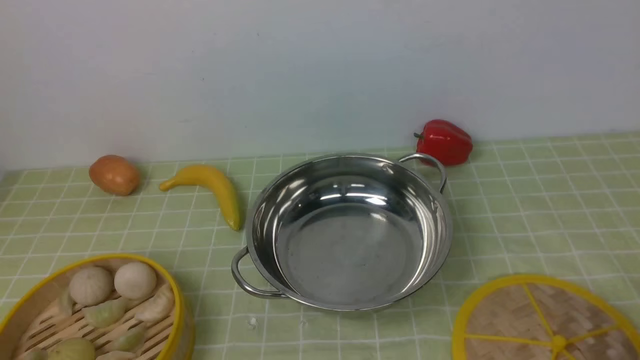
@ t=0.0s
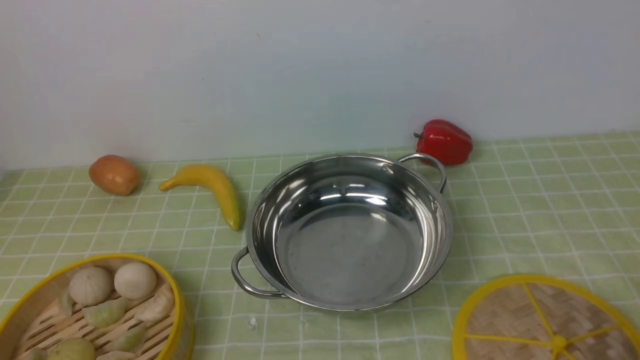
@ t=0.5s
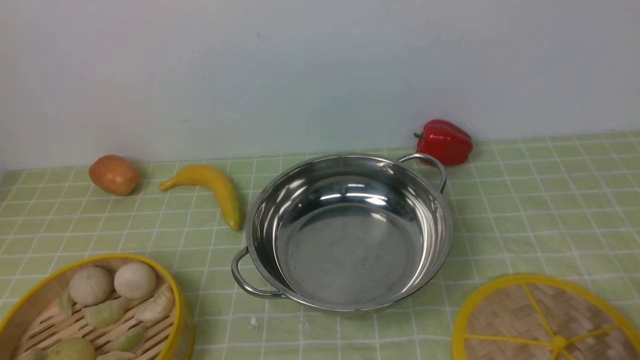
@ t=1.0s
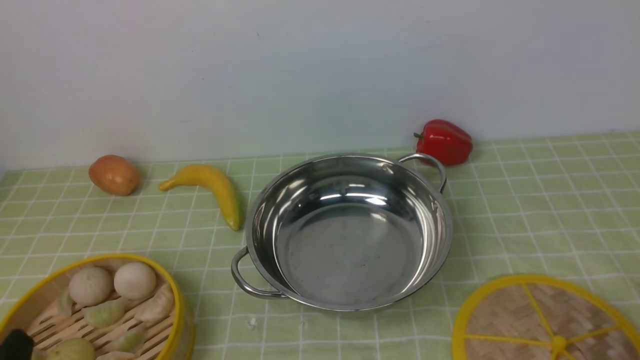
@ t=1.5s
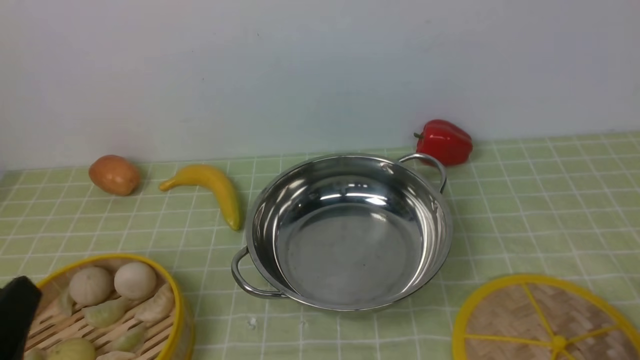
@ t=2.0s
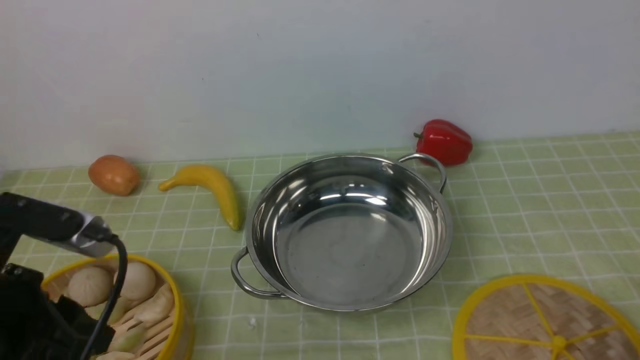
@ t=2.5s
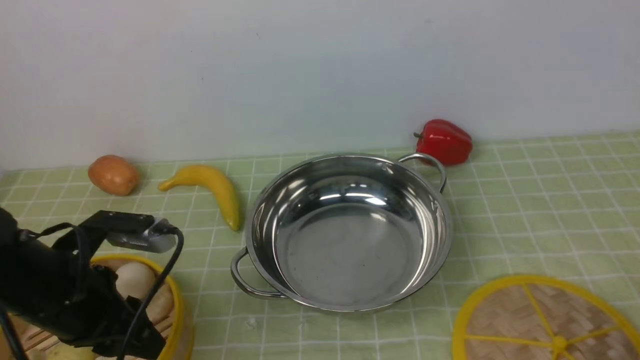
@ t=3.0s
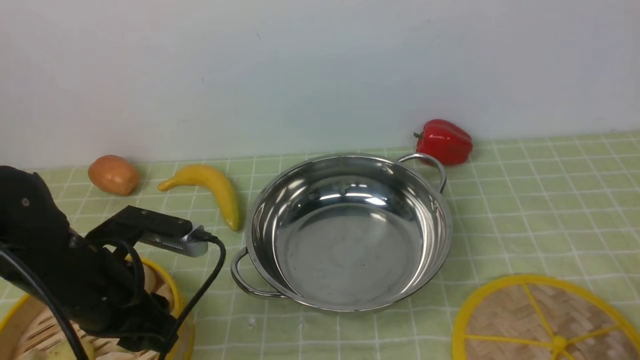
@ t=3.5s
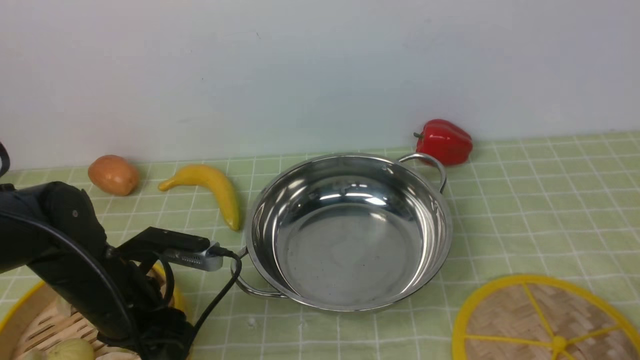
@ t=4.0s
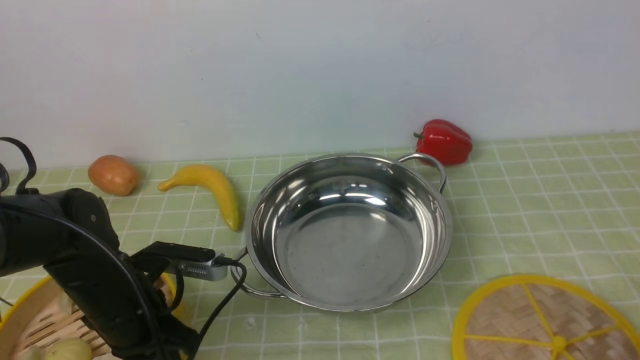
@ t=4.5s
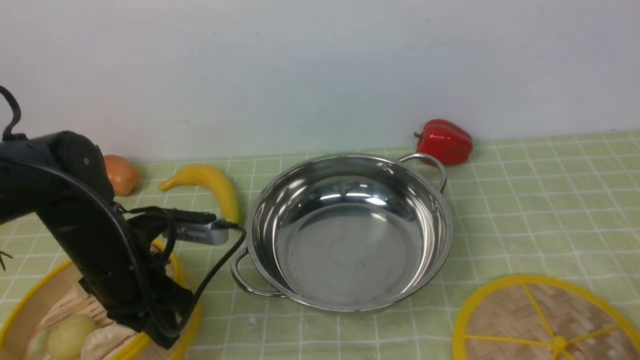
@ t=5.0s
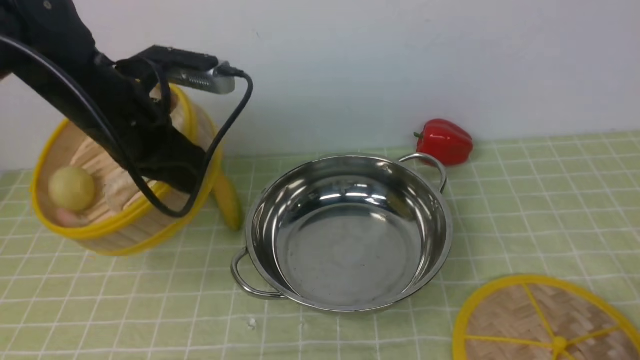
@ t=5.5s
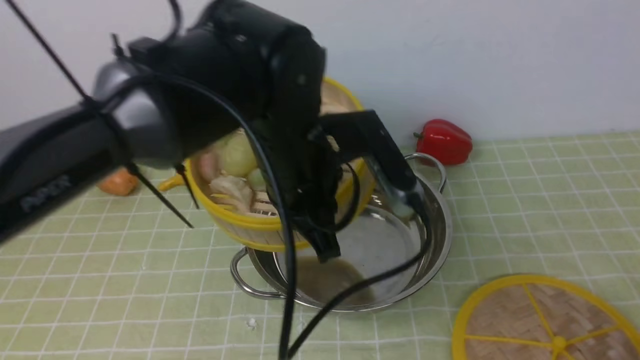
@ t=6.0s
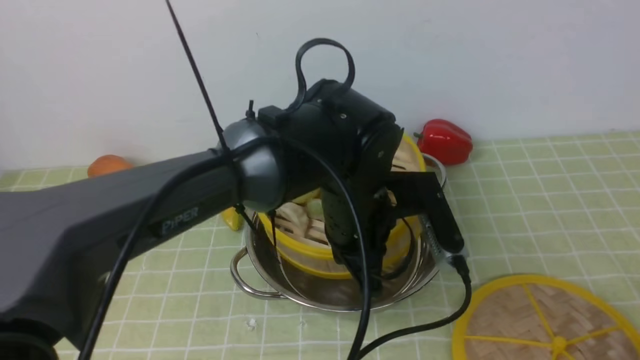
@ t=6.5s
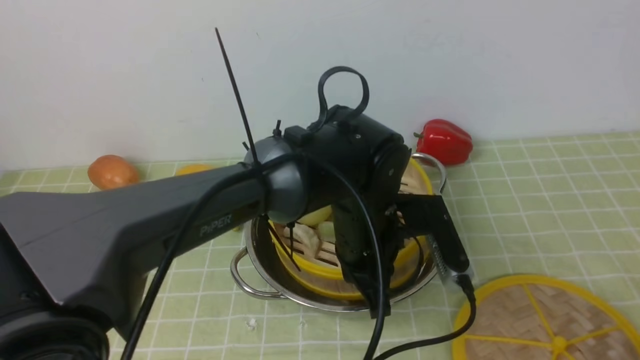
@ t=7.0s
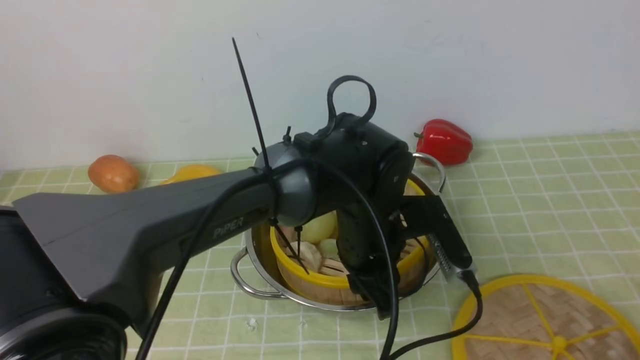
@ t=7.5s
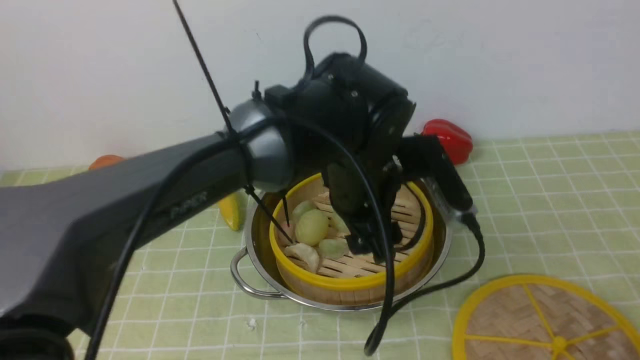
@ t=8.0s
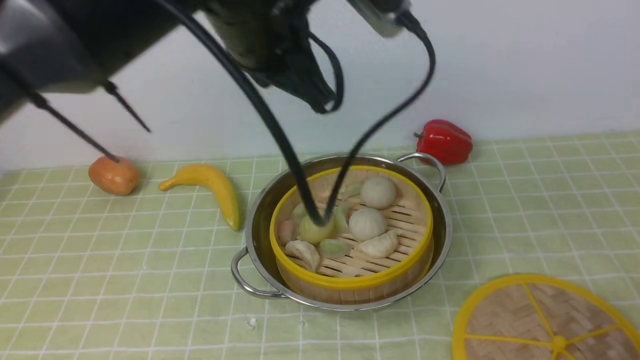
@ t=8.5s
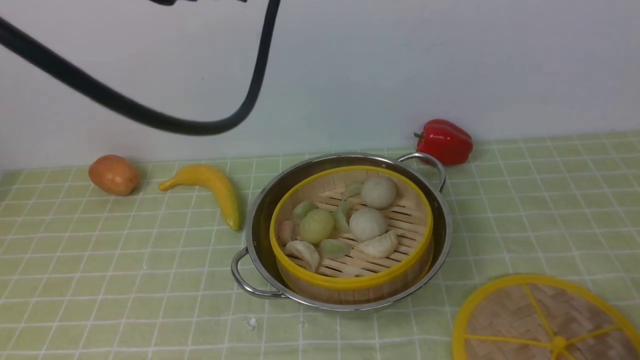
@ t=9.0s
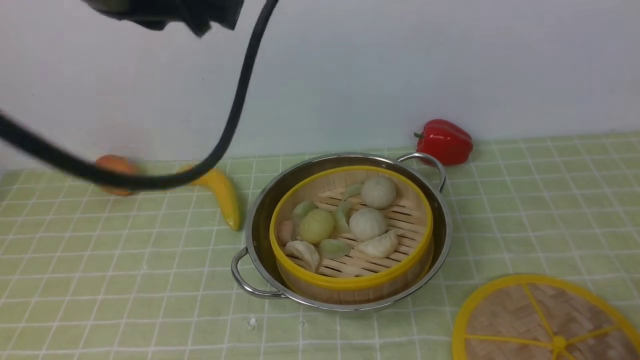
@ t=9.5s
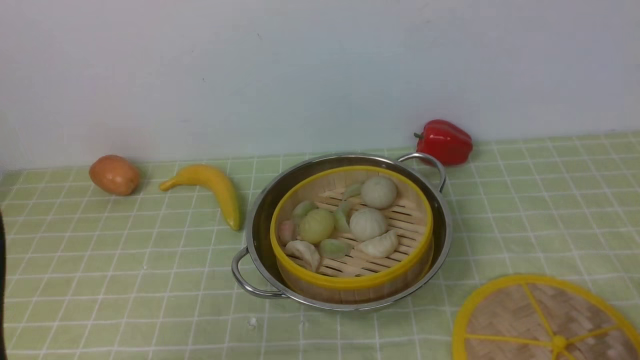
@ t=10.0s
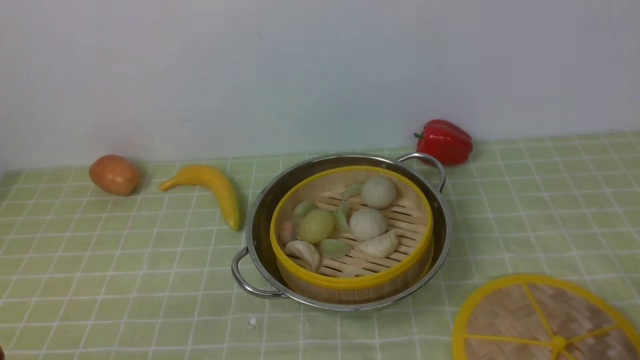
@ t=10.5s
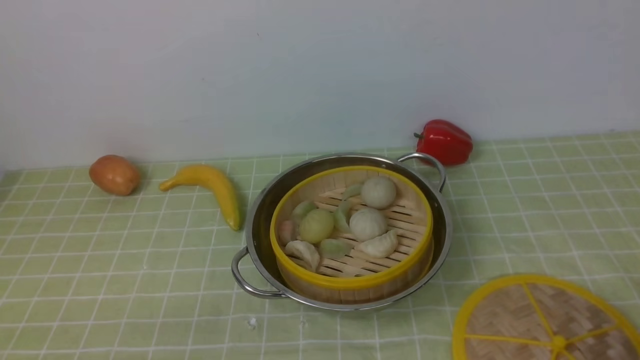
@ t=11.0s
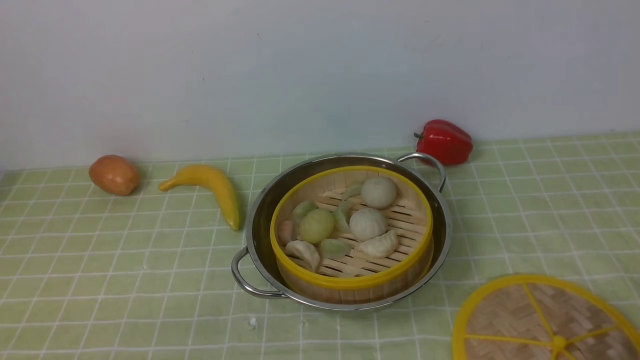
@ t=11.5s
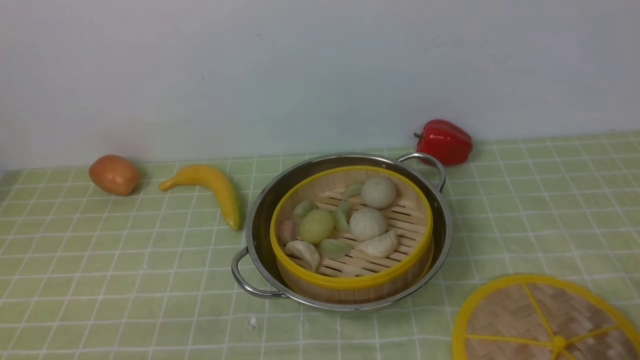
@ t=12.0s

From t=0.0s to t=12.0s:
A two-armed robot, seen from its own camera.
Task of the whole recording: place the steamer in the pot on the green tablecloth, and put the lid on the steamer.
Step, from t=0.0s to t=5.0s: use the left arm to lift the steamer closest to it.
Step, from t=5.5s to t=8.0s: use the left arm to put the steamer into the iron steamer pot in the middle.
From t=0.0s to t=2.0s: The left gripper moves upward, approximately 10 cm.
From t=2.0s to t=4.0s: The left gripper moves forward and downward, roughly 20 cm.
From t=4.0s to t=6.0s: The left gripper shifts some 20 cm to the right and upward, and closes its fingers.
From t=6.0s to t=8.0s: The left gripper shifts roughly 5 cm to the right, goes downward and returns, about 10 cm each way, and opens its fingers.
From t=8.0s to t=10.0s: The left gripper shifts about 35 cm to the left and backward, and closes.

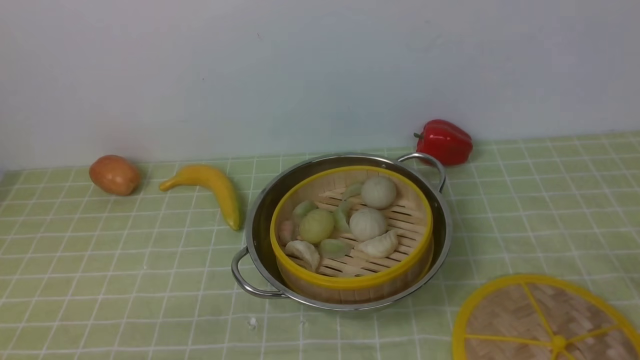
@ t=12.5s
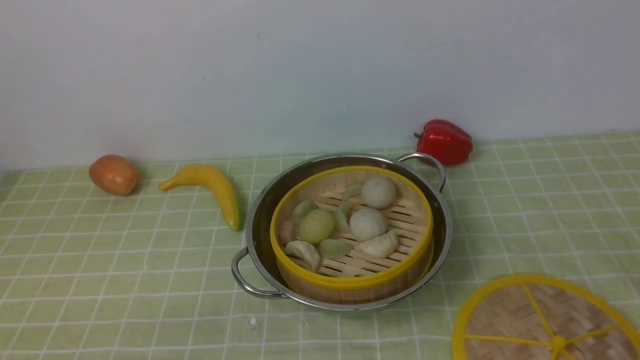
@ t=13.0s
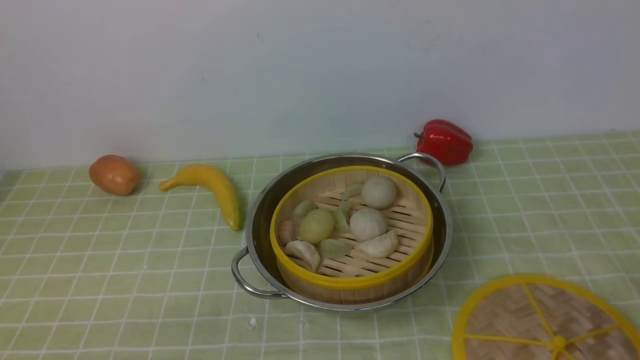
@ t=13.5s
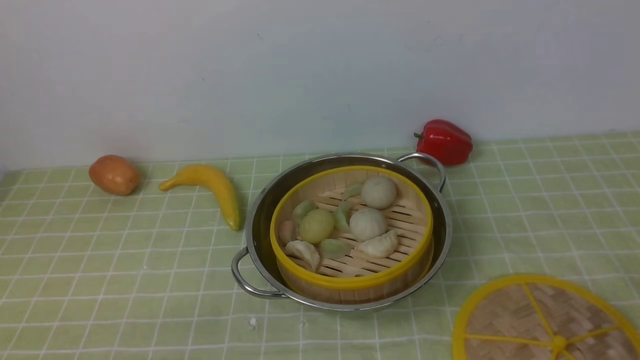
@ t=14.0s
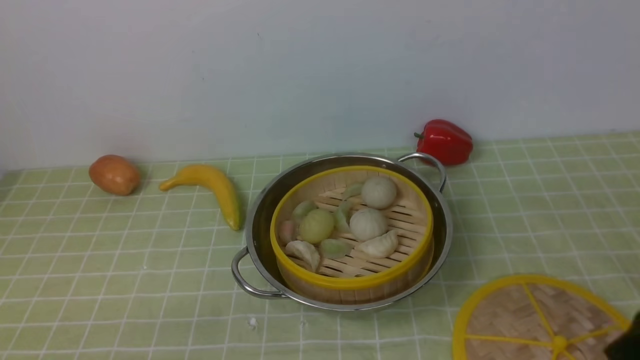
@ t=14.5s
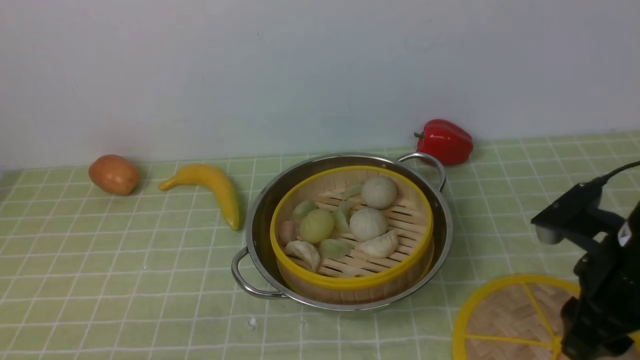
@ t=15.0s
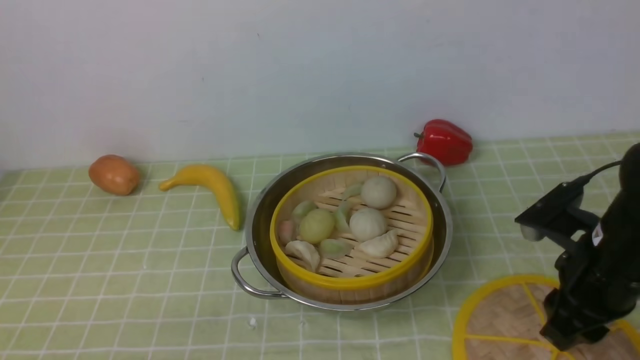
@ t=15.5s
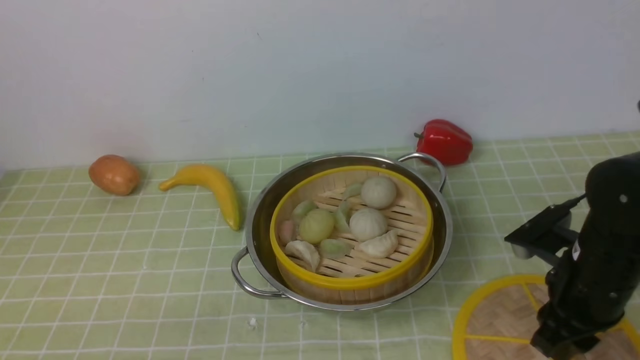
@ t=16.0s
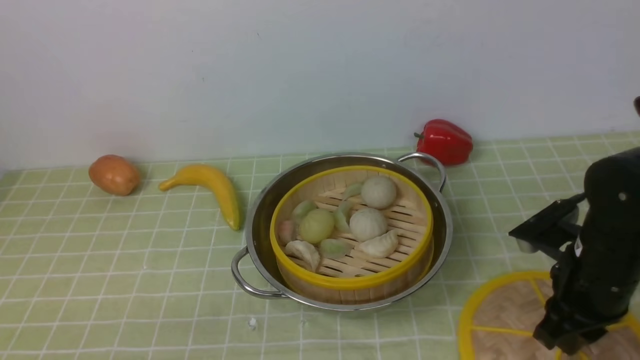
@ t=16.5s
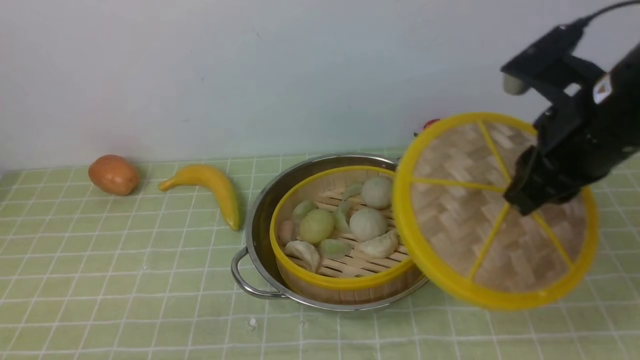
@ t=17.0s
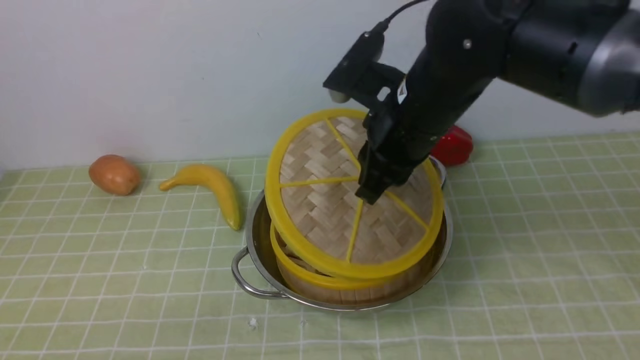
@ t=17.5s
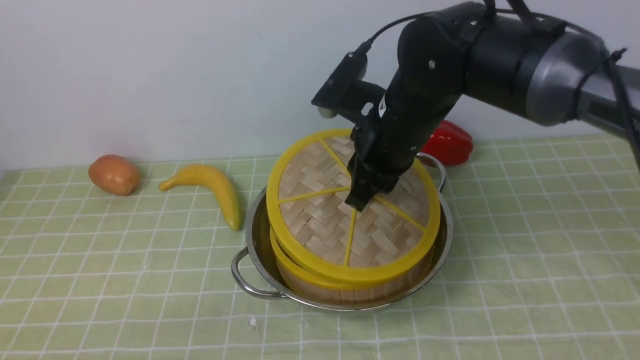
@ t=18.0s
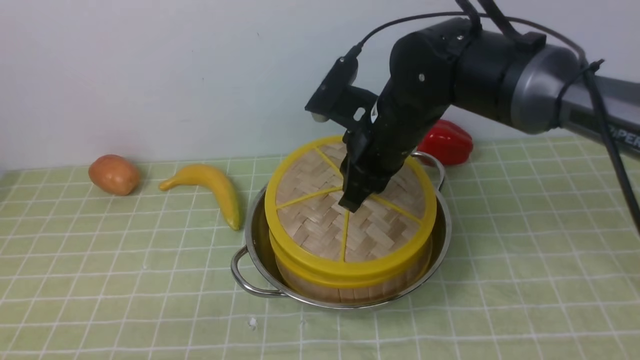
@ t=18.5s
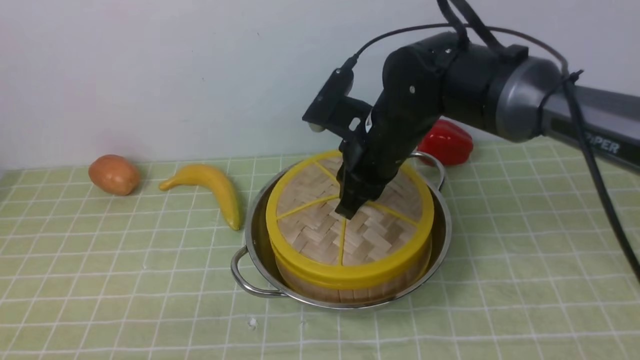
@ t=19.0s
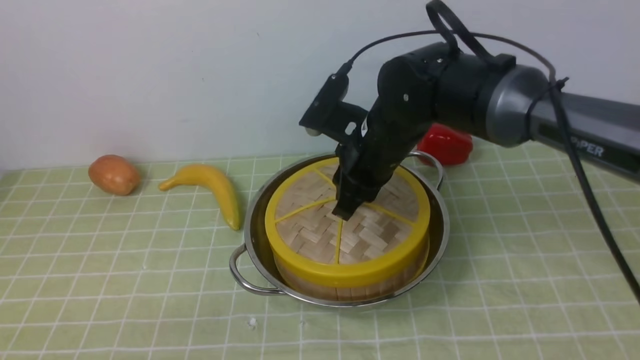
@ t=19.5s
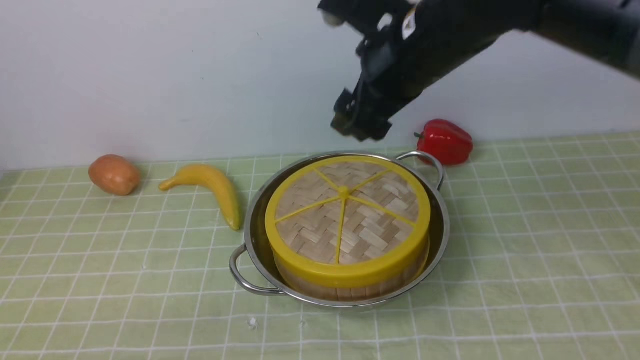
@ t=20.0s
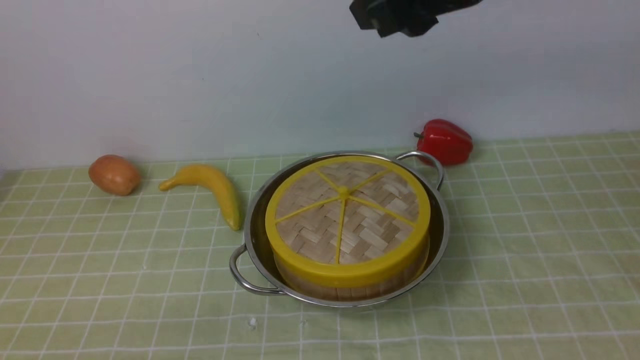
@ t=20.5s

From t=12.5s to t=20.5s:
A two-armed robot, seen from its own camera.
Task of the whole recording: place the steamer in the pot on the green tablecloth, and put the lid on the steamer.
Step, from t=12.5s to t=17.0s: use the right arm to lift the lid of the steamer.
Step, from t=17.5s to t=20.0s: use the right arm to place the steamer lid on the steamer.
From t=14.5s to t=16.5s: The right gripper is displaced forward and downward by approximately 15 cm, and closes.
From t=16.5s to t=18.5s: The right gripper goes about 20 cm to the left and forward.
From t=18.5s to t=20.5s: The right gripper shifts some 20 cm upward and backward, and opens.
